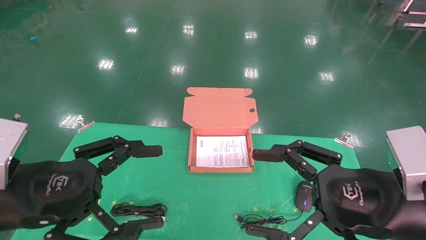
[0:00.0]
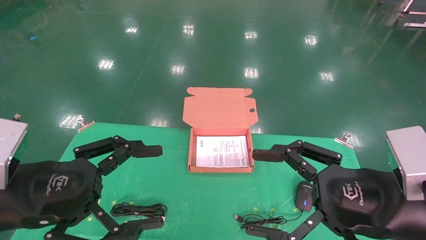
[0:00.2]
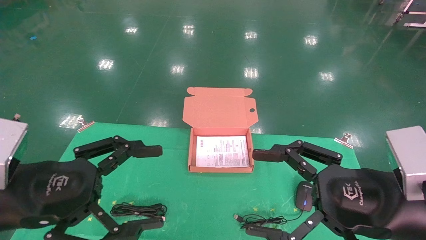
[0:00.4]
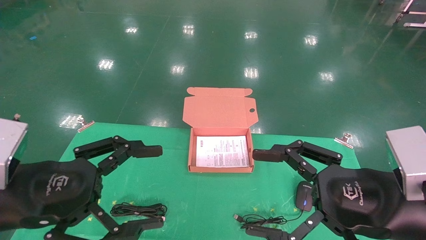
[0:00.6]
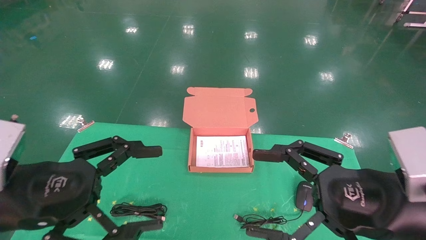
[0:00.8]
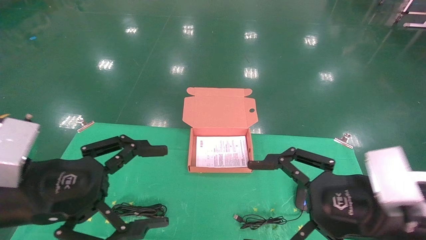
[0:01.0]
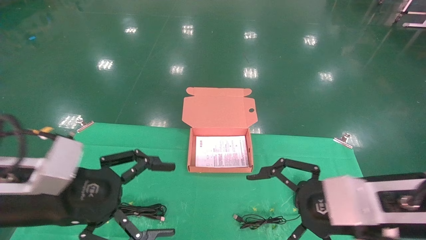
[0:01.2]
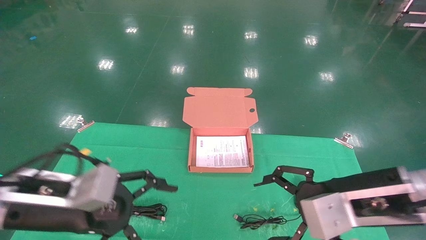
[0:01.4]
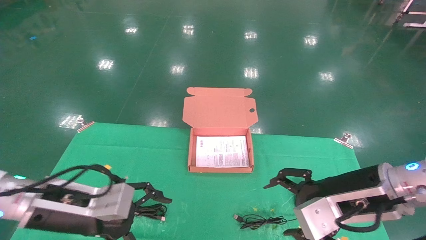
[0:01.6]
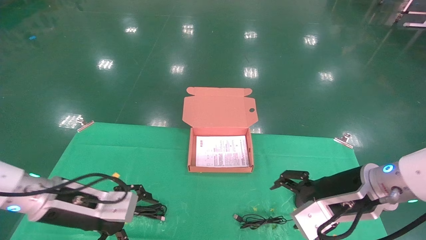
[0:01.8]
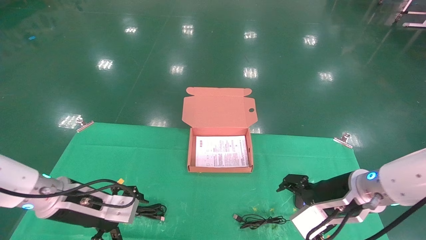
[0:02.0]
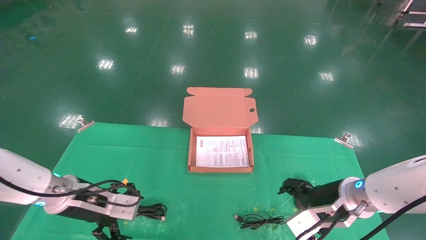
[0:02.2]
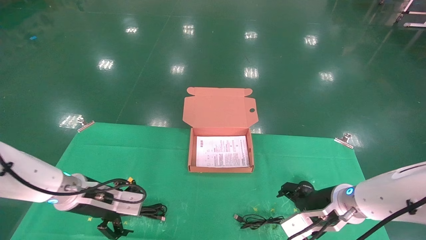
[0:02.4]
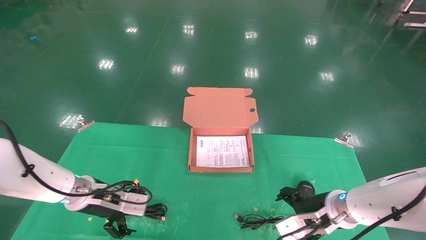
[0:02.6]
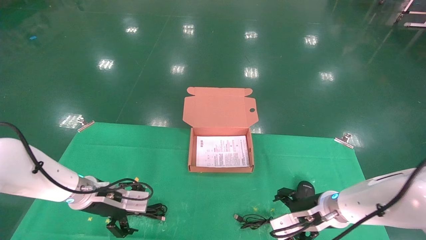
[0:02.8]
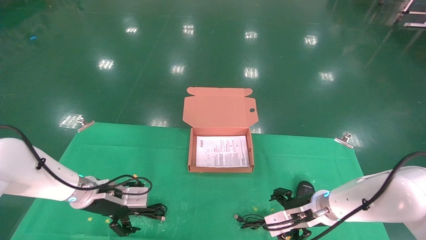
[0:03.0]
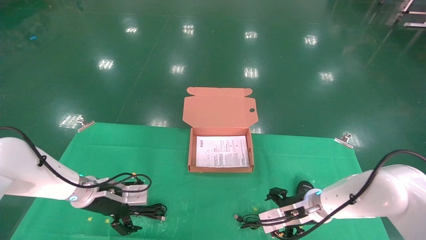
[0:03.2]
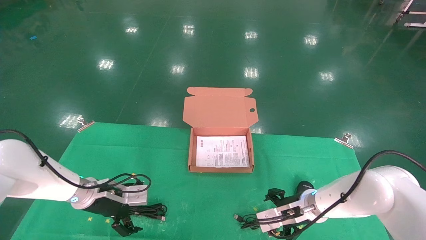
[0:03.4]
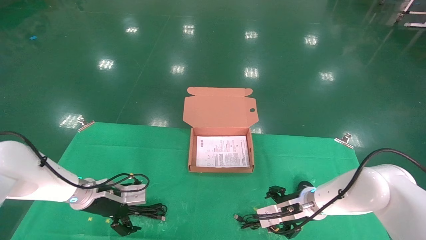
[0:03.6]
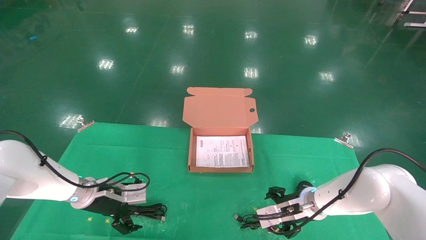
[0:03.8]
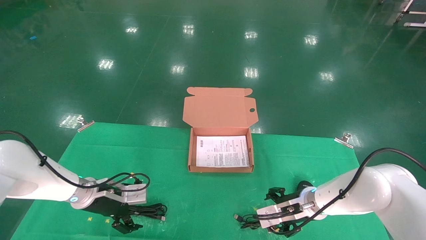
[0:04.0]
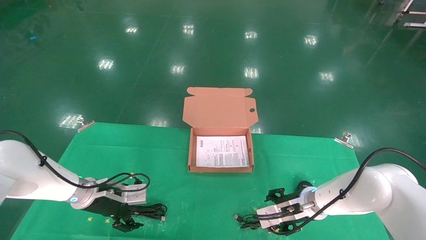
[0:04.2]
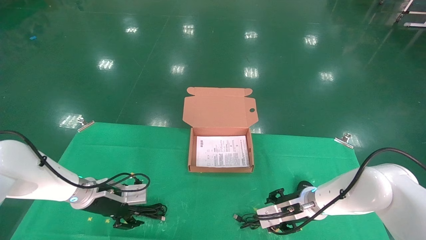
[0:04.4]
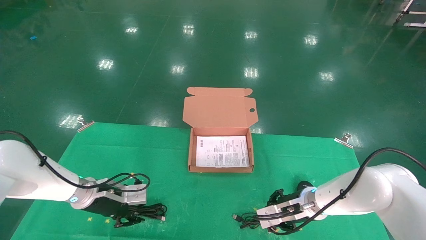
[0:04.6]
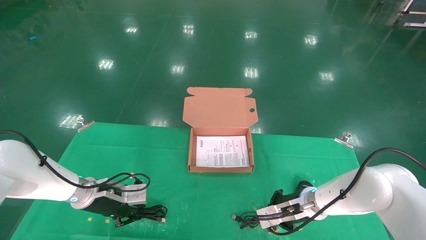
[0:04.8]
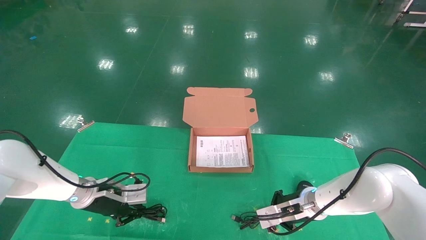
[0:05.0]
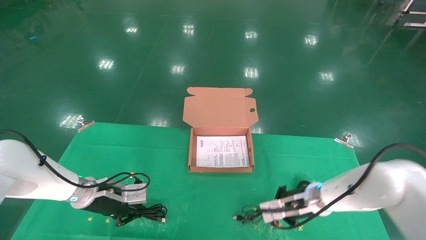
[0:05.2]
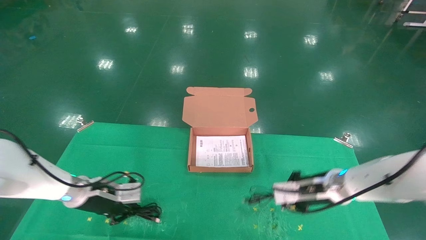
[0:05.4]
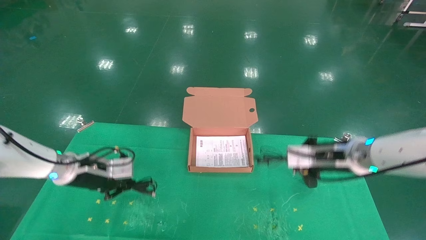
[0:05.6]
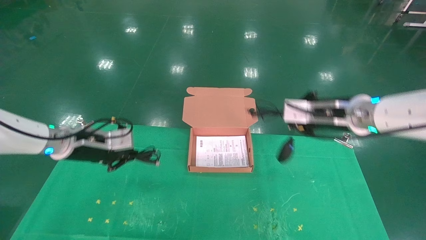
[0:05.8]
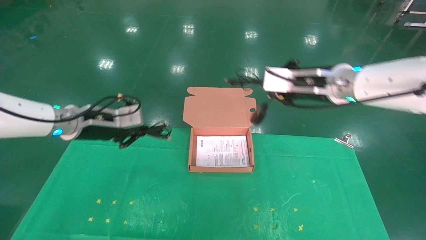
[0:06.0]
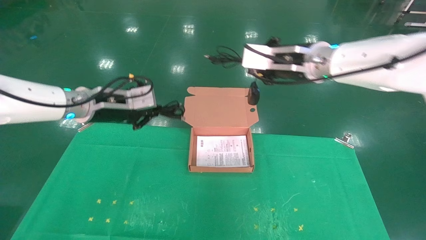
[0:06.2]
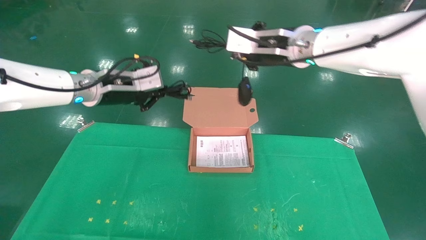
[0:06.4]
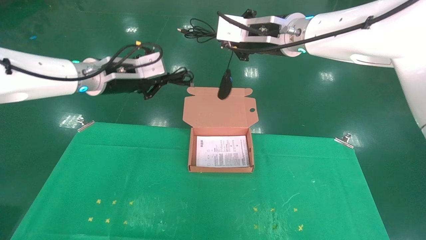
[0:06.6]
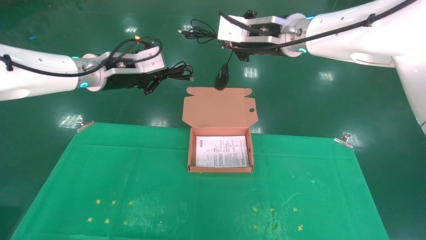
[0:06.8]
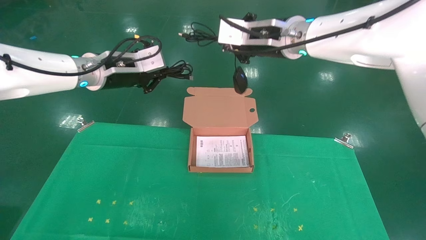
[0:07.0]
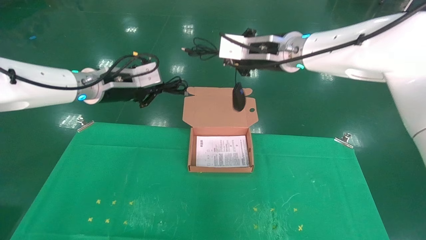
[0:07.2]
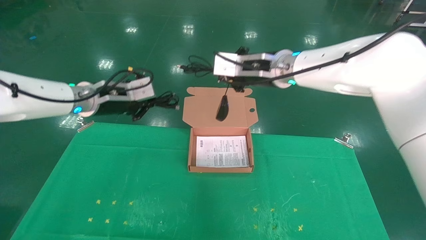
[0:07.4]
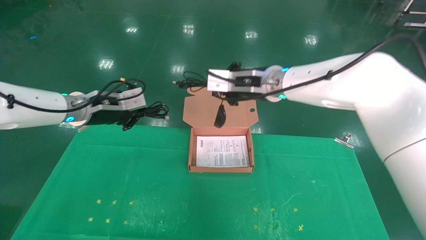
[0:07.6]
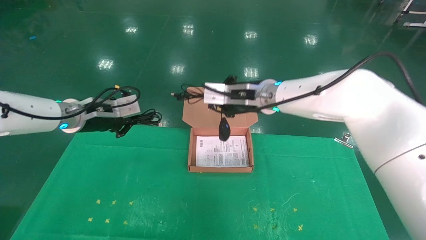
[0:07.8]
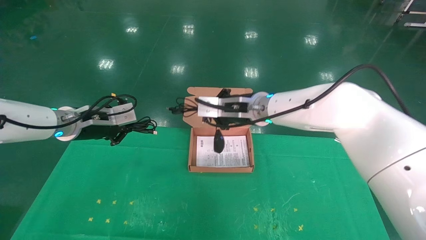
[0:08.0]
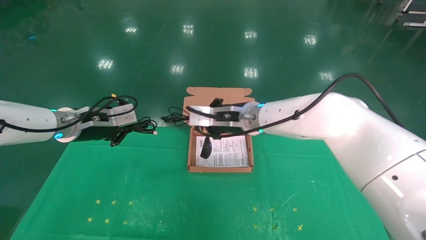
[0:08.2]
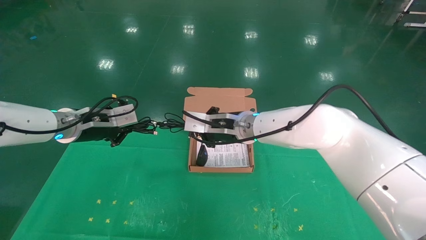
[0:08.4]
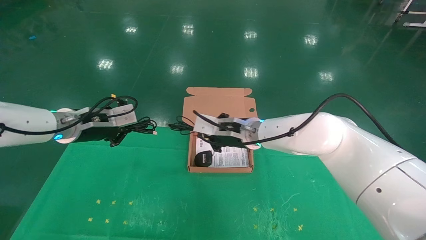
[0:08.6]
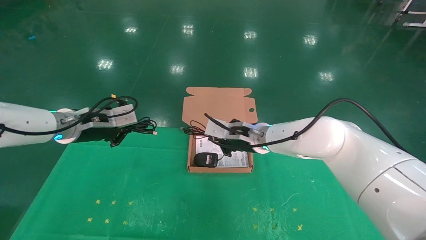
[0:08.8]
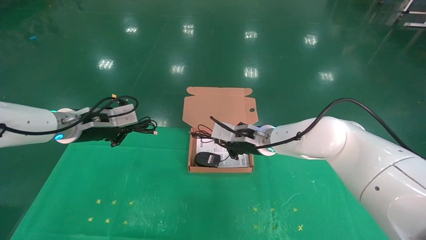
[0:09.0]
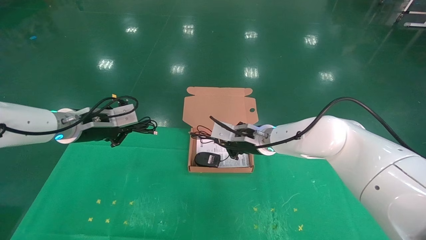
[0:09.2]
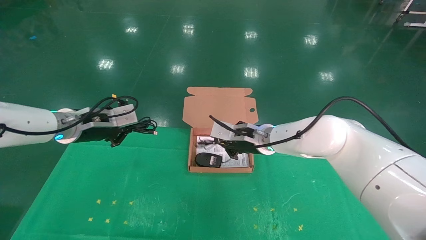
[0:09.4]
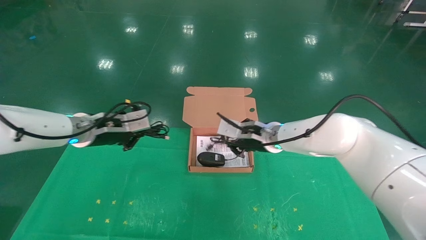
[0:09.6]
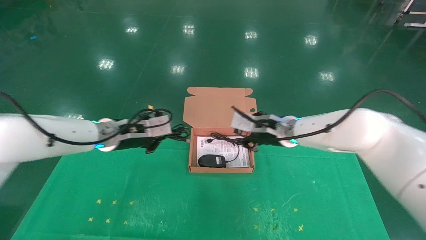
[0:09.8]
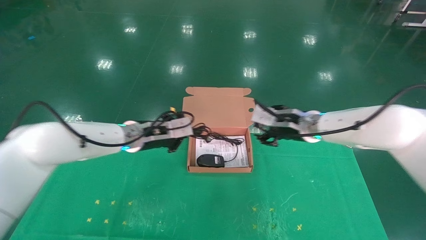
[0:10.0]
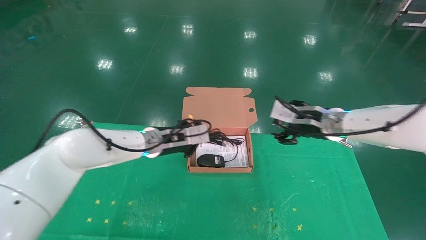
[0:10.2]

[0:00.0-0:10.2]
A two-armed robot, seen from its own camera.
Task of the whole recording: grasp data cable left put into box grasp mouse right put into box.
Step, 0:01.4 to 0:04.8: Grab and pick up both the mouse and power cord from the accessory packaging area at the same time.
0:00.0 to 0:01.4: Both grippers travel together forward, roughly 5 cm.
0:01.4 to 0:03.0: The right gripper travels downward and forward by about 20 cm; the left gripper shifts roughly 20 cm forward and downward.
0:03.0 to 0:04.4: The left gripper closes up, while the right gripper closes.
0:04.4 to 0:05.8: The left gripper heads upward, covering approximately 20 cm, and closes. Meanwhile the right gripper shifts some 30 cm upward, and closes its fingers.
0:05.8 to 0:07.2: The right gripper travels to the left by approximately 10 cm.
0:07.2 to 0:08.8: The right gripper is displaced downward by about 15 cm. Meanwhile the left gripper changes place by about 5 cm.
0:08.8 to 0:10.2: The left gripper moves to the right and downward, some 20 cm, while the right gripper goes about 15 cm to the right, and opens up.

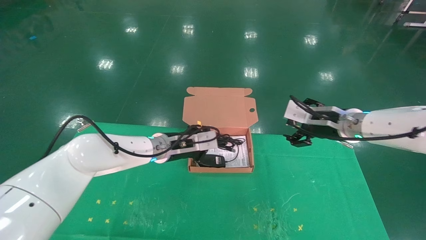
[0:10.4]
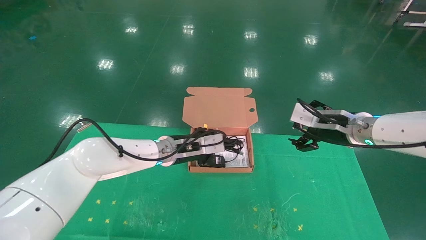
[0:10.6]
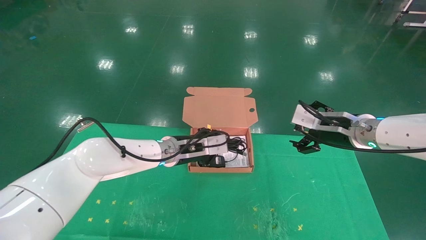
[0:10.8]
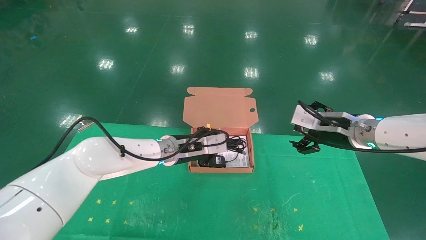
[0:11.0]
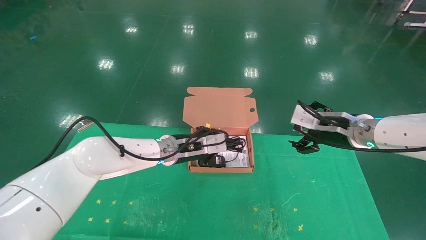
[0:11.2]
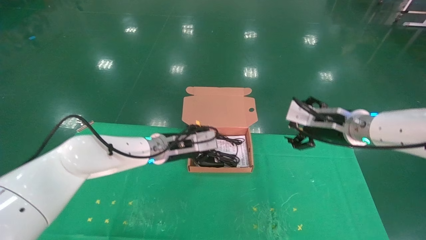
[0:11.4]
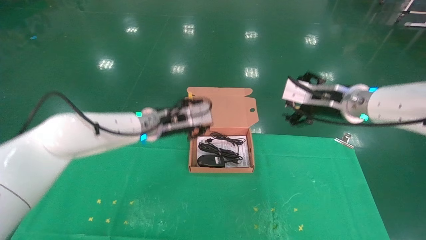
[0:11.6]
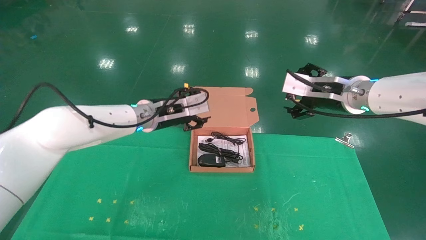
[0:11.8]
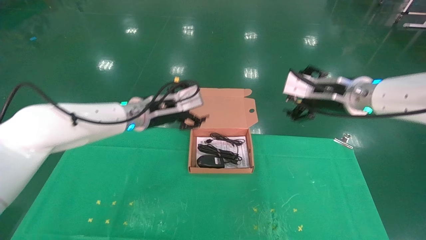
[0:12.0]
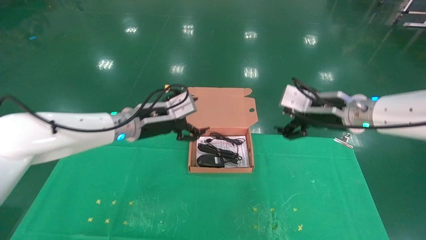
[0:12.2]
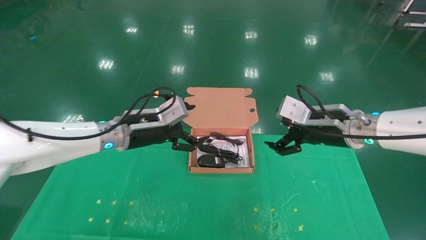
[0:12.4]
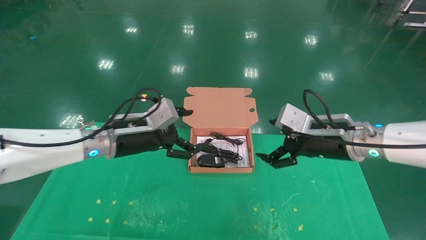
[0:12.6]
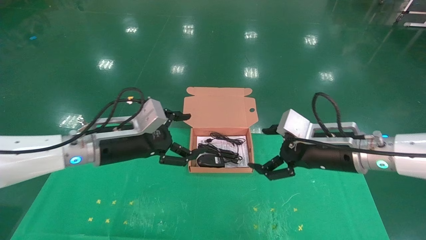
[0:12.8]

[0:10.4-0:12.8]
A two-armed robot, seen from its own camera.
Task of the whole recording: grasp data cable left put into box grasp mouse right put into box.
0:10.4 to 0:11.6: Both grippers move upward, roughly 5 cm. The left gripper opens.
0:11.6 to 0:12.8: The left gripper shifts some 15 cm backward and to the left, and opens up. The right gripper moves downward and backward, some 10 cm.

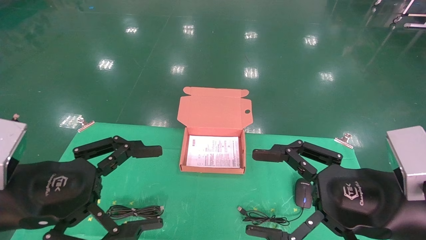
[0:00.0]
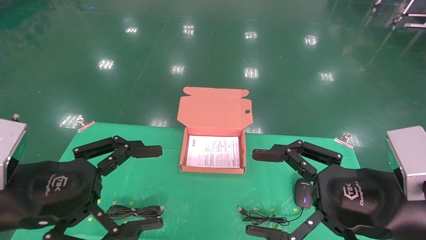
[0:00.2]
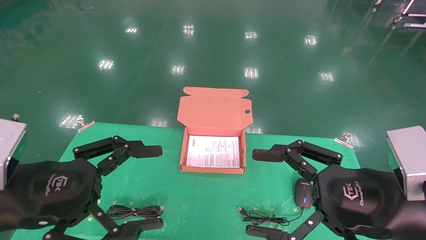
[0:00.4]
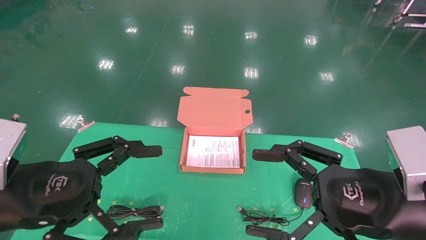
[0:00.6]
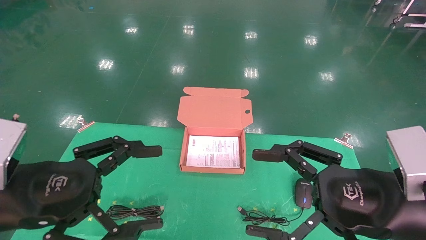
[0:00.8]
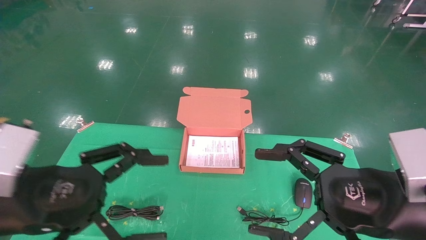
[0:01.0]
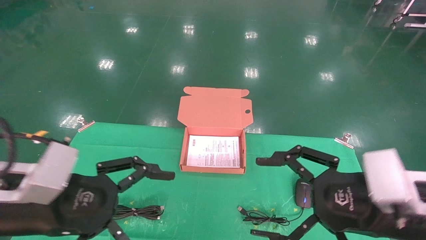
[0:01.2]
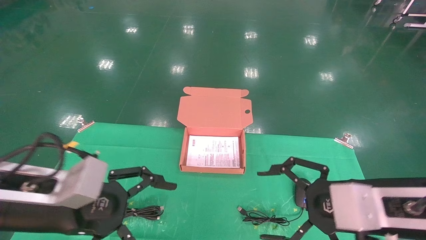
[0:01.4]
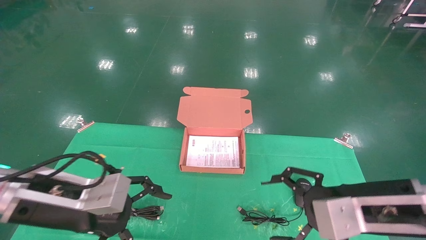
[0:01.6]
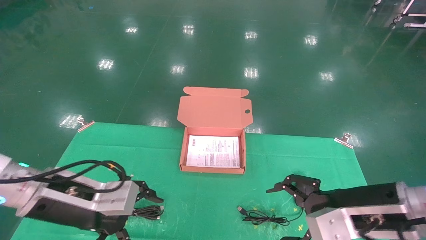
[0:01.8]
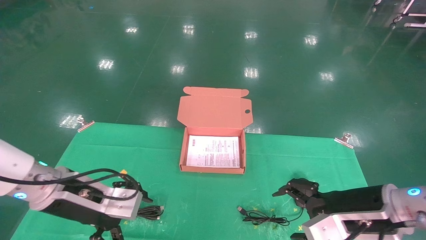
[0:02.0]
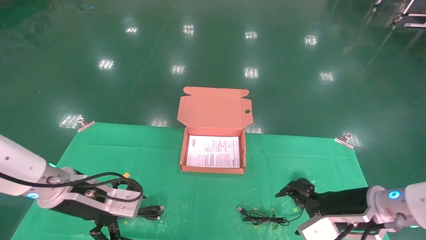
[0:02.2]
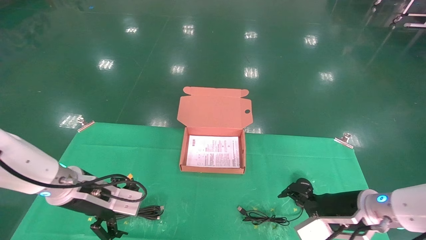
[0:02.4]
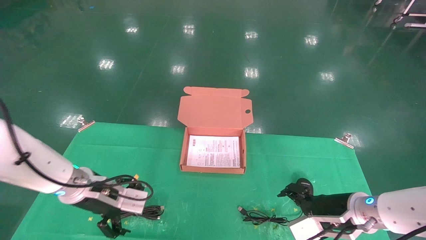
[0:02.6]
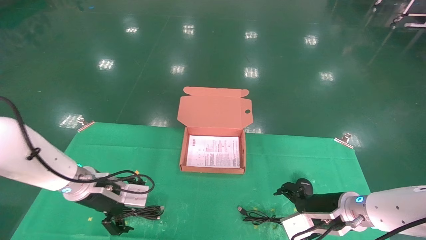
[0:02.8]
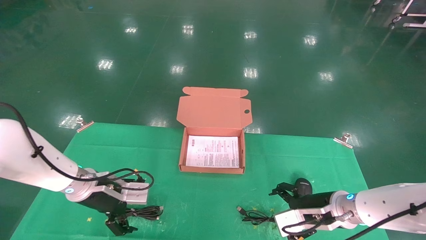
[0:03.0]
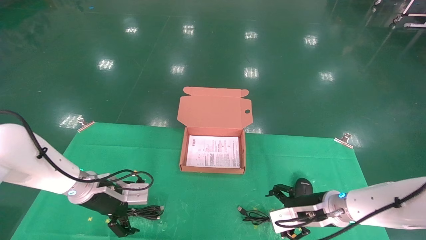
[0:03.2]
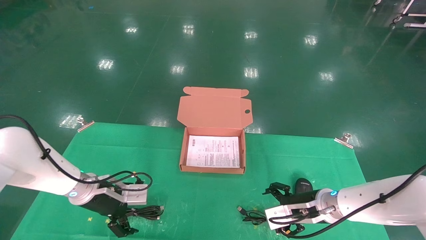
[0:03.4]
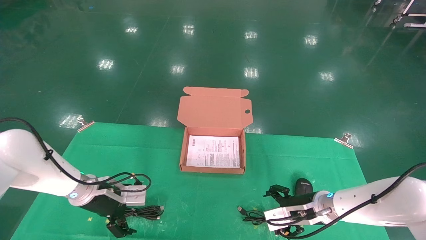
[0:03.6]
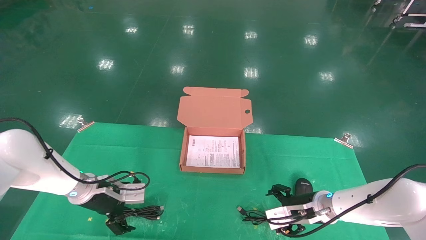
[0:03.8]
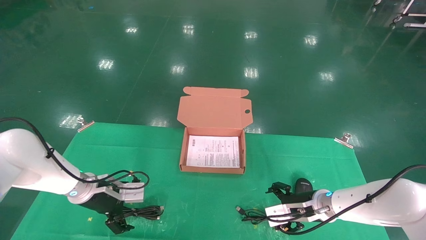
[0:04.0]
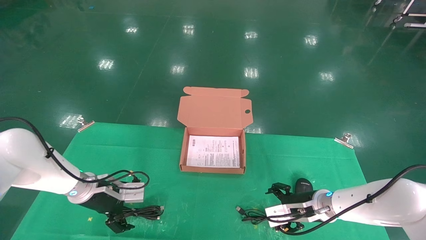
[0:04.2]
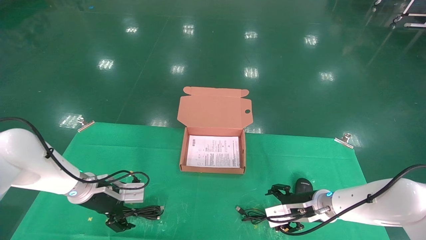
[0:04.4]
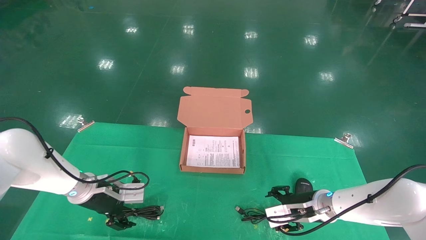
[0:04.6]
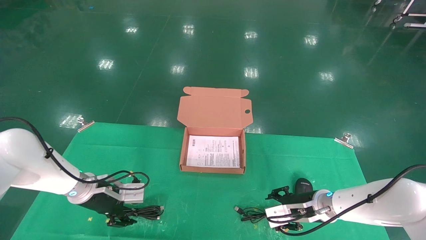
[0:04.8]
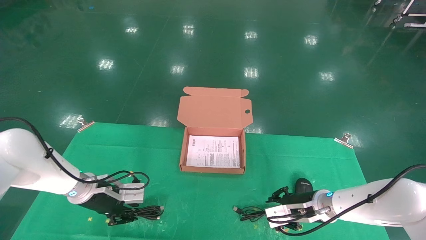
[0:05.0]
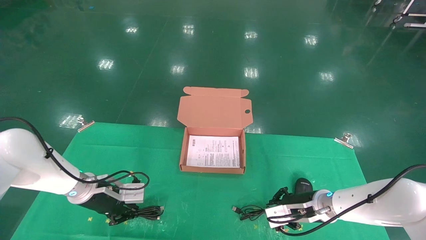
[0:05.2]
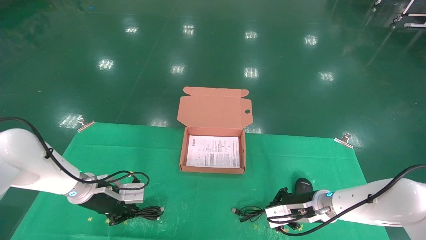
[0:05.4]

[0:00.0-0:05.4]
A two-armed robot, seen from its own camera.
Task of the whole recording: grasp data cable left put into box grasp mouse right put into box.
Step, 0:01.0 to 0:05.2: Grab and pick up both the mouse and power cord from the accessory packaging area at the same time.
0:00.0 to 0:01.4: The left gripper ends up roughly 5 cm from where it was.
0:01.4 to 0:02.8: The grippers both shift forward and downward by some 15 cm.
0:02.8 to 0:04.0: The left gripper shifts by roughly 5 cm. The right gripper travels forward by approximately 5 cm.
0:04.0 to 0:05.4: The right gripper closes up. The left gripper closes up.
